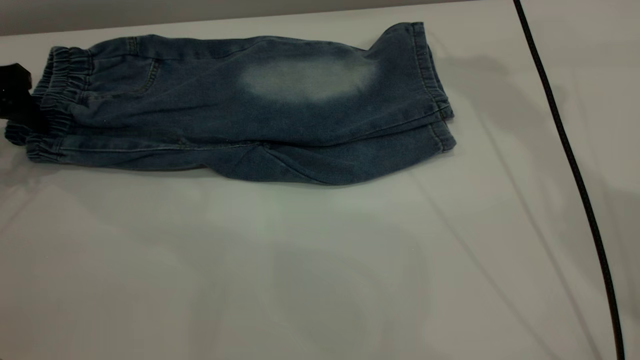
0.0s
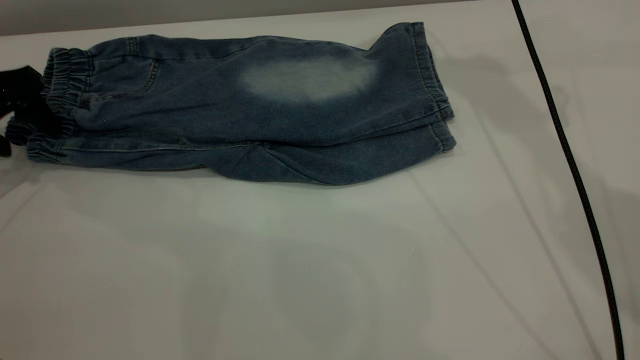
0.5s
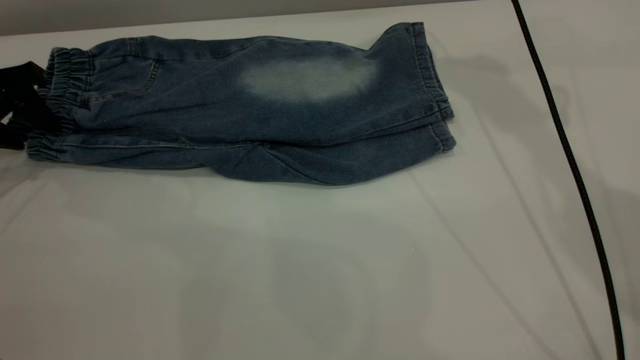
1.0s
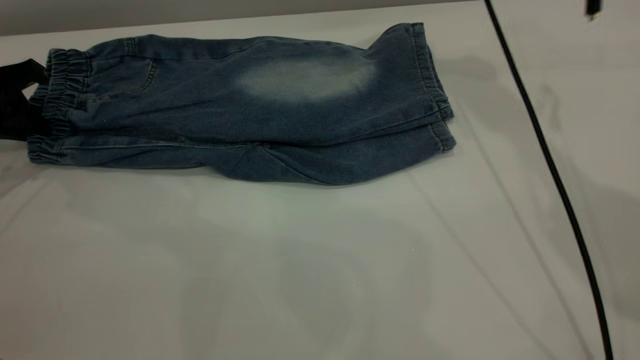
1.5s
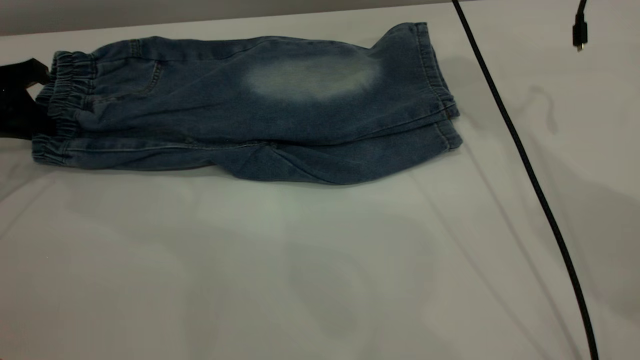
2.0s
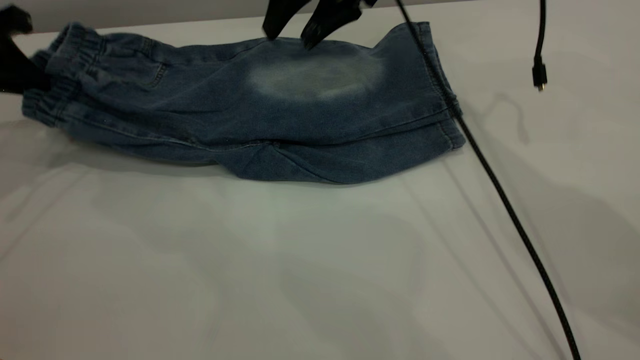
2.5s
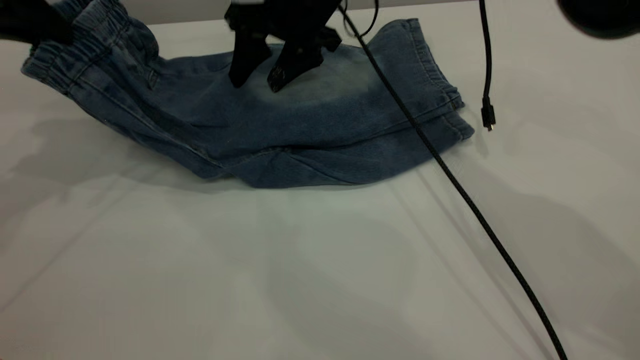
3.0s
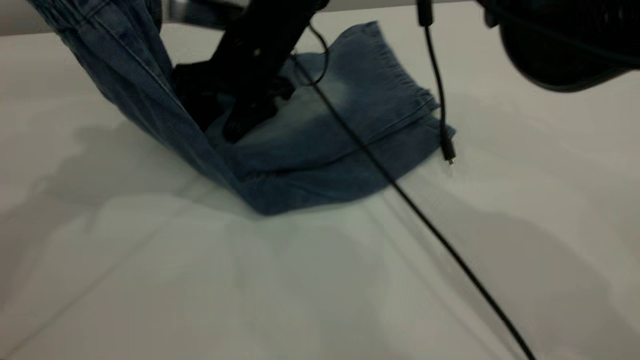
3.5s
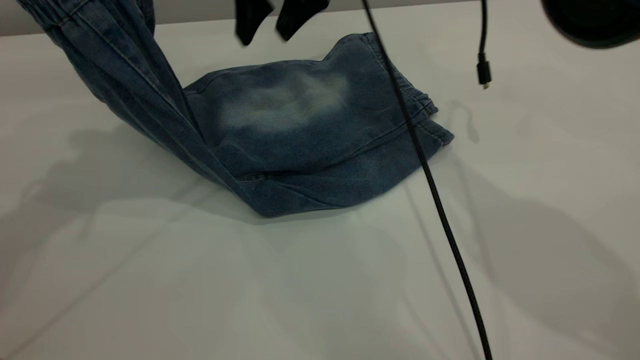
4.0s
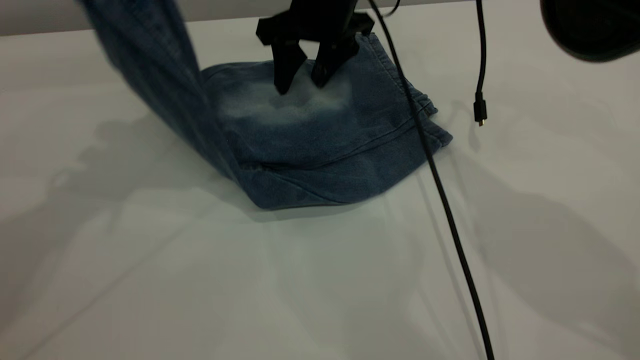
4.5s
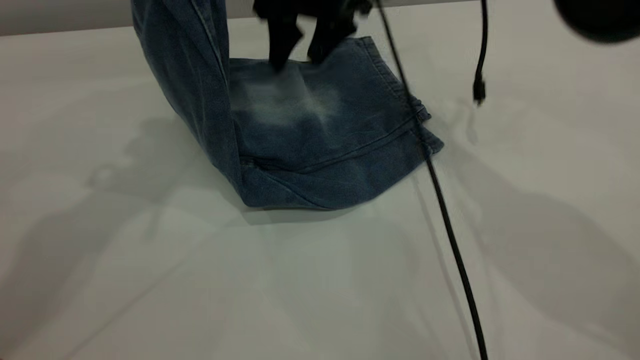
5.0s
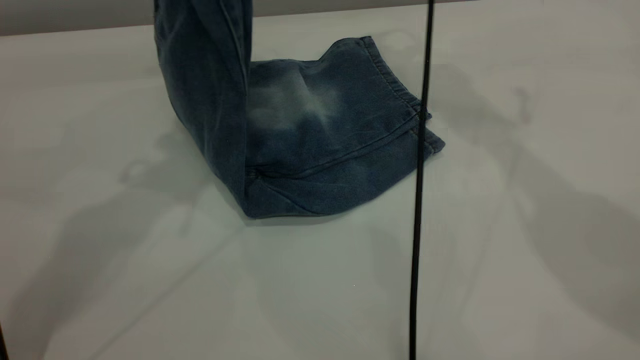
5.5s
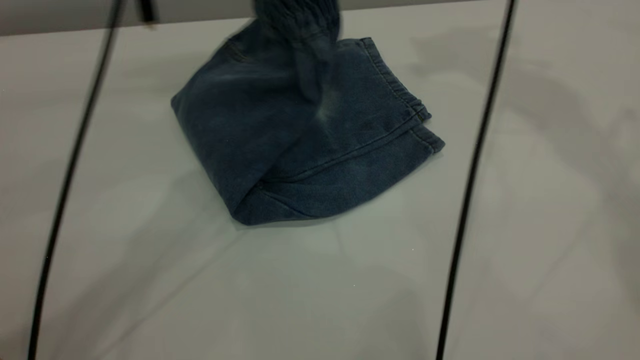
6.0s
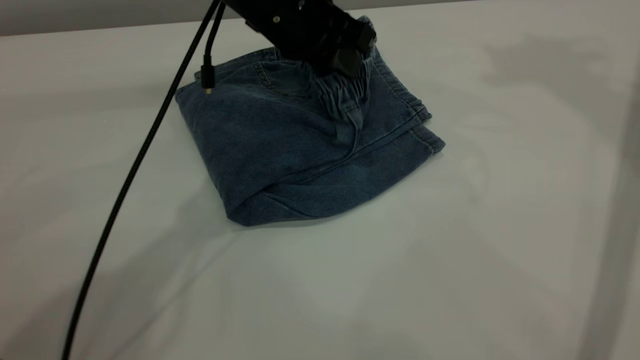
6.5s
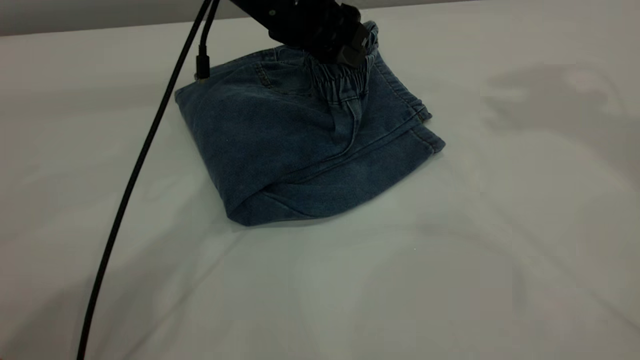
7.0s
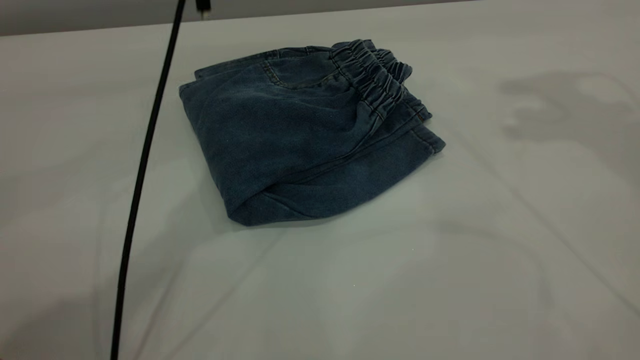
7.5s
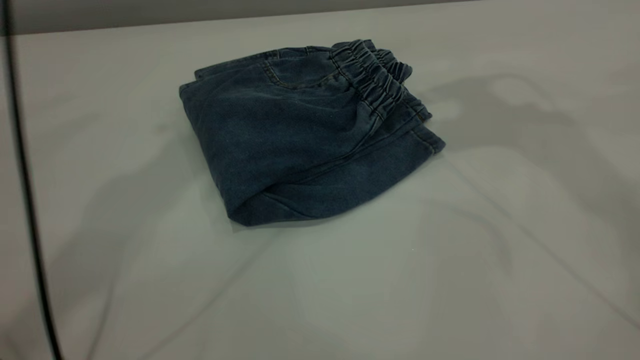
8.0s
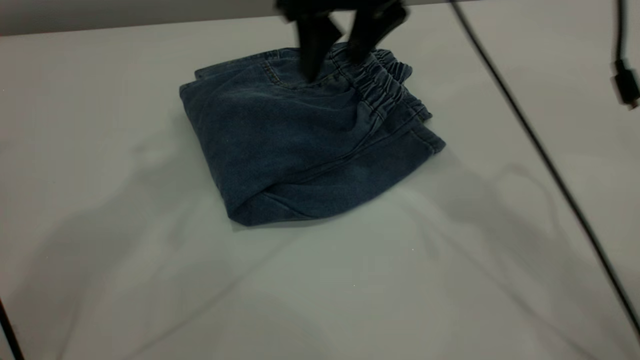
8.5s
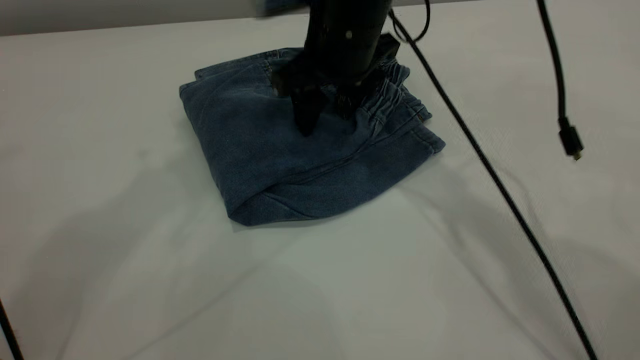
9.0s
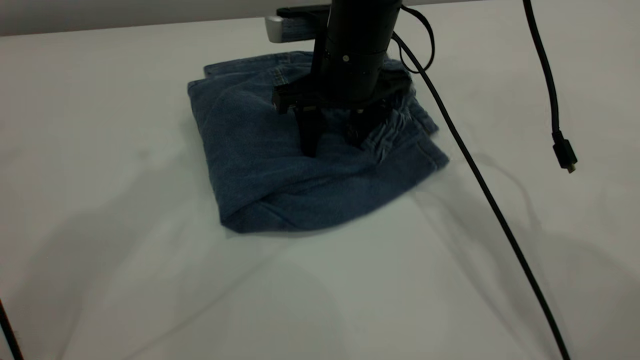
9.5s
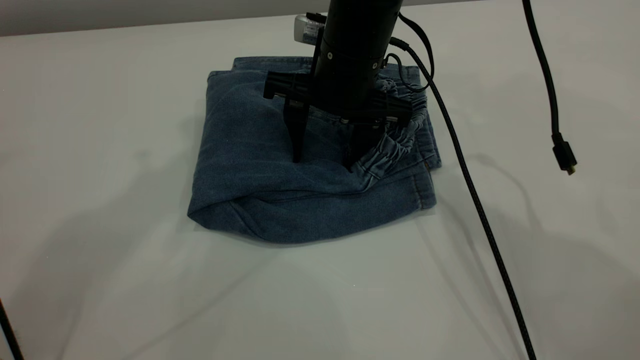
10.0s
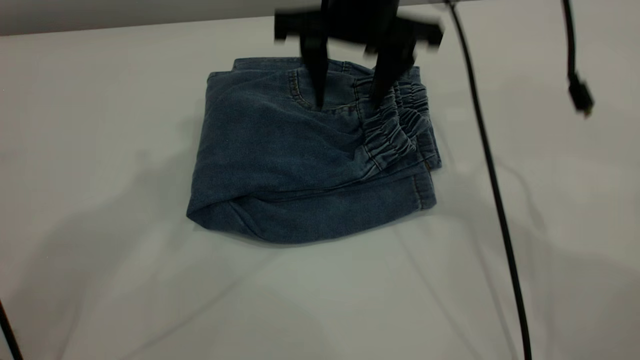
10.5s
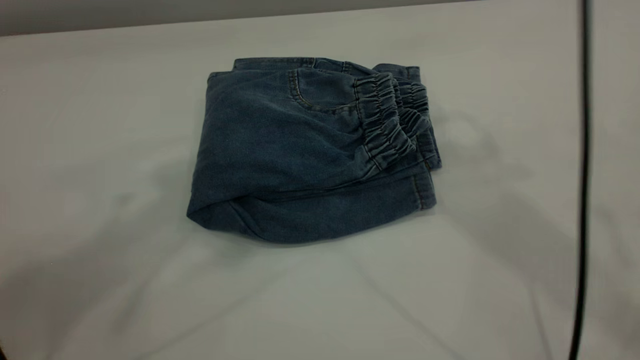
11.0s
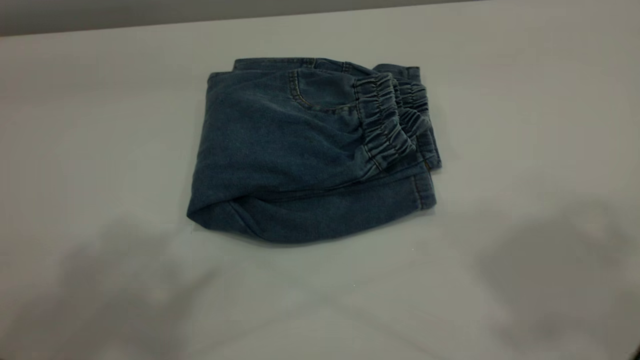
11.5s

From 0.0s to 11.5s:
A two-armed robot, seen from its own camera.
Step, from 0.0s to 7.5s: Fold the pants from left to right.
From 0.0s to 2.0s: The right gripper shifts about 10 cm downward; the left gripper closes up.
From 2.0s to 4.0s: The left gripper goes some 20 cm upward and to the right; the right gripper moves to the left, approximately 5 cm.
From 4.0s to 6.0s: The right gripper heads upward and to the right, covering approximately 35 cm. The left gripper shifts some 20 cm to the right.
From 6.0s to 7.5s: The right gripper shifts approximately 15 cm downward, backward and to the right, while the left gripper travels downward and back again, approximately 5 cm each way, and opens up.
From 7.5s to 9.5s: The right gripper heads downward and to the left, covering some 35 cm. The left gripper is displaced upward and to the left by some 25 cm.
From 9.5s to 11.5s: The right gripper moves upward, backward and to the right, approximately 50 cm. Meanwhile the left gripper goes approximately 15 cm backward.

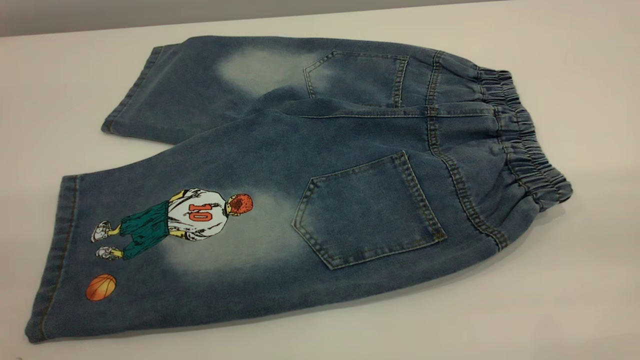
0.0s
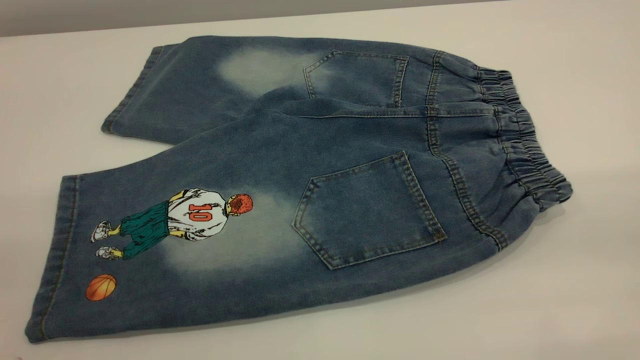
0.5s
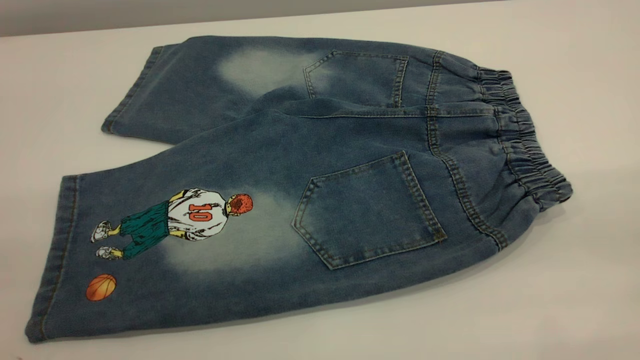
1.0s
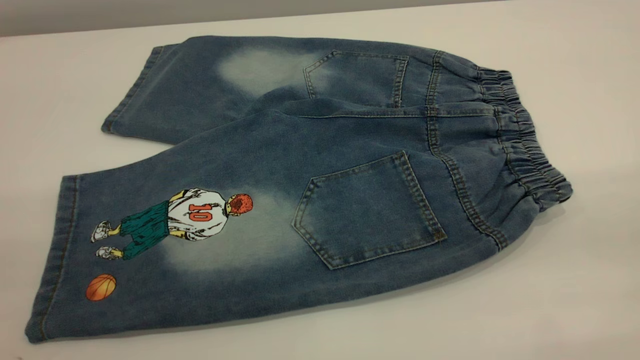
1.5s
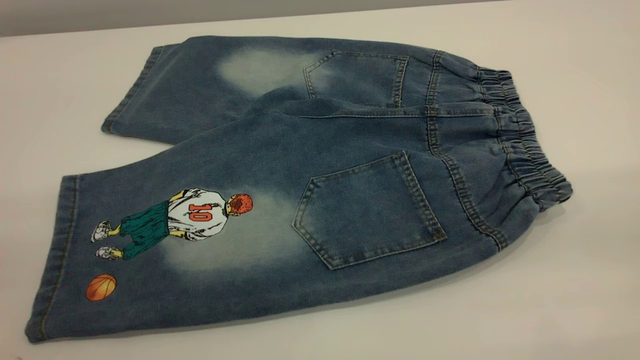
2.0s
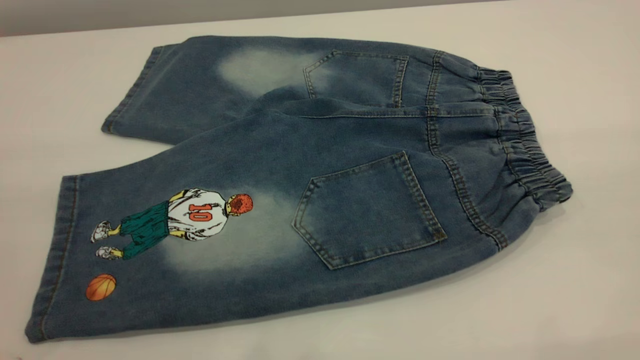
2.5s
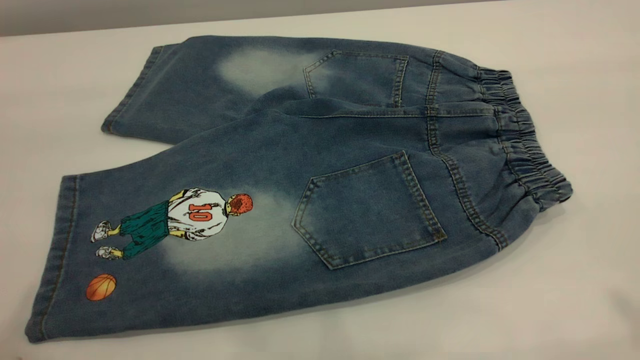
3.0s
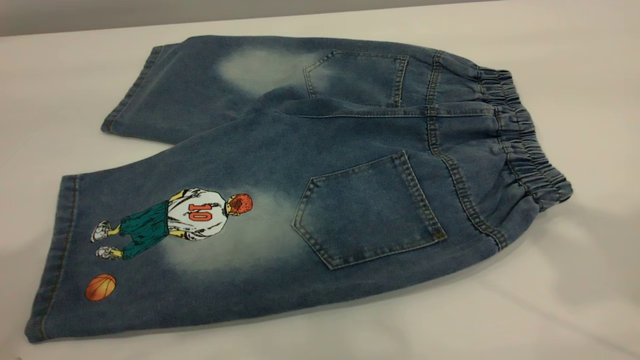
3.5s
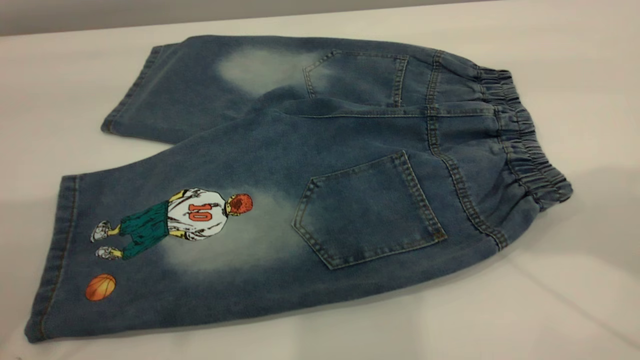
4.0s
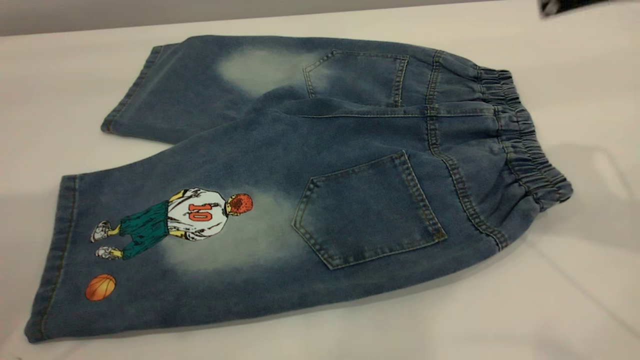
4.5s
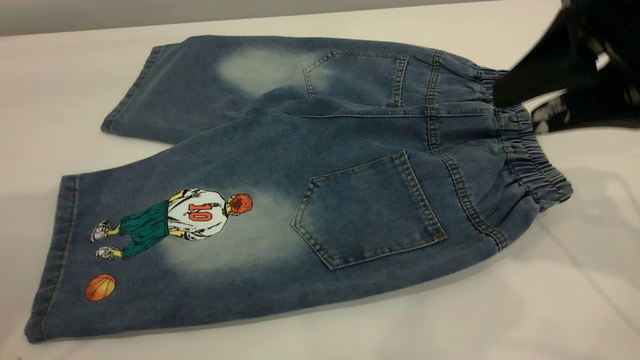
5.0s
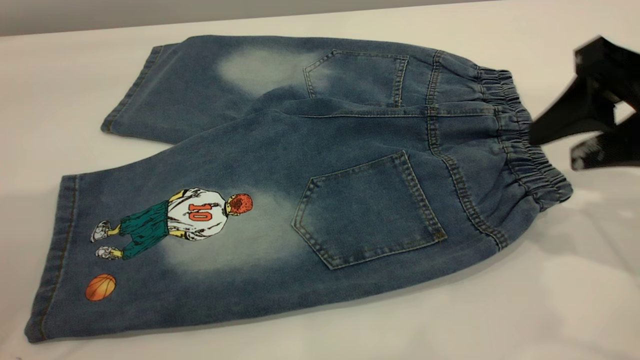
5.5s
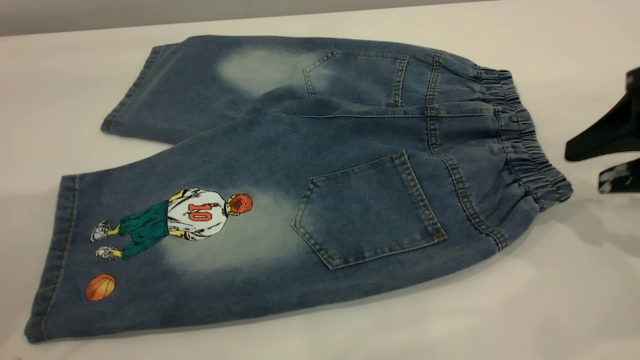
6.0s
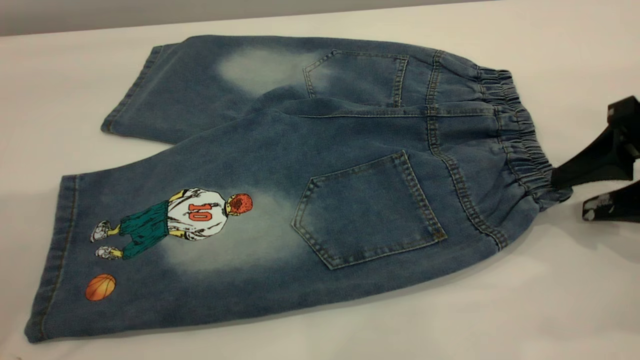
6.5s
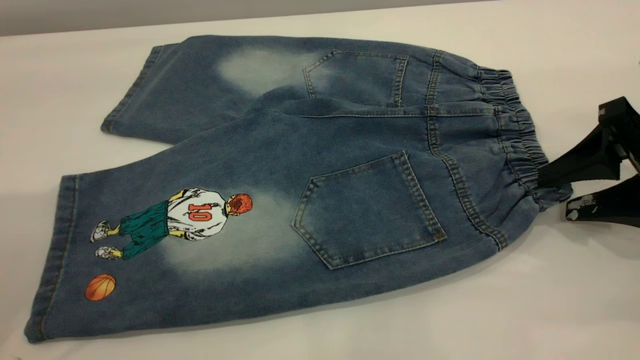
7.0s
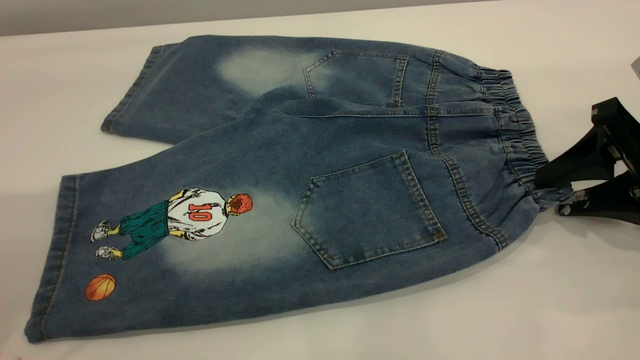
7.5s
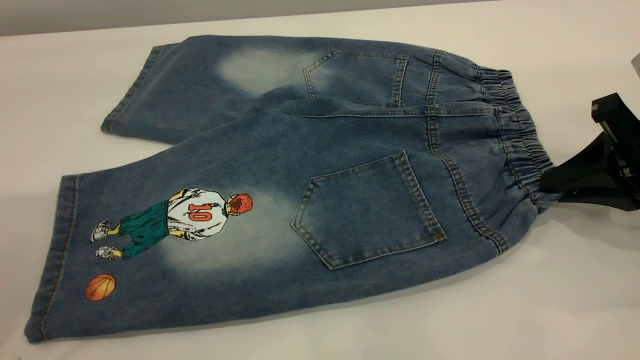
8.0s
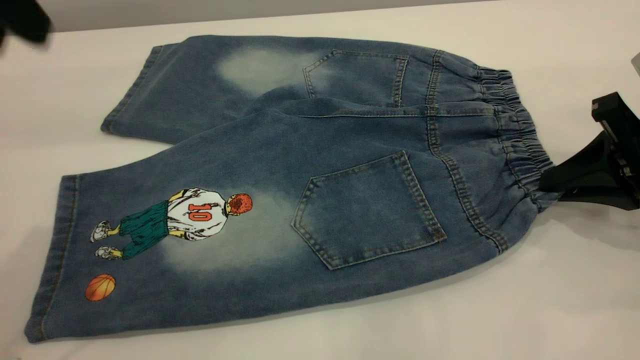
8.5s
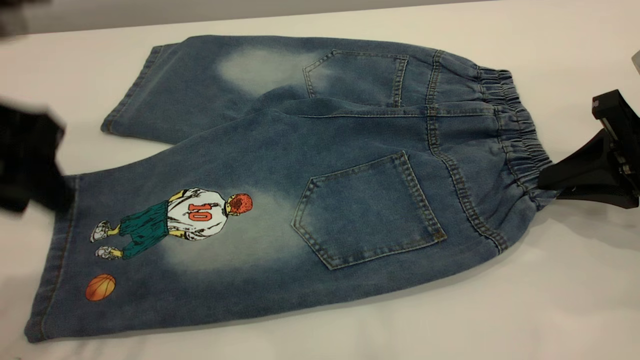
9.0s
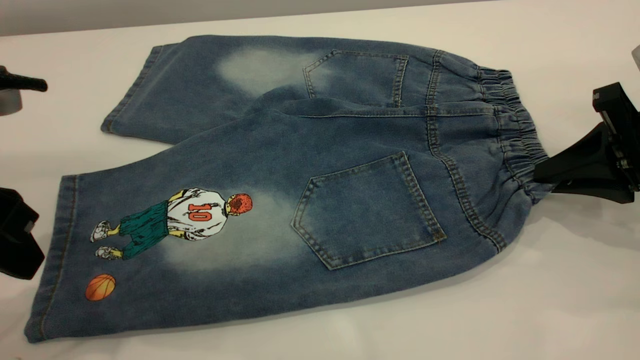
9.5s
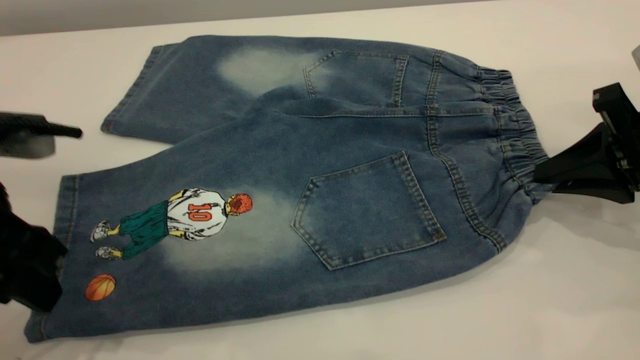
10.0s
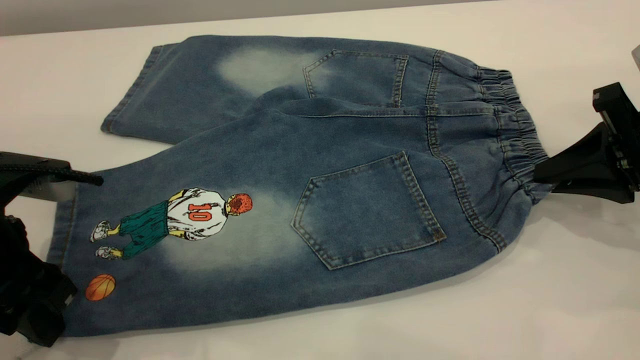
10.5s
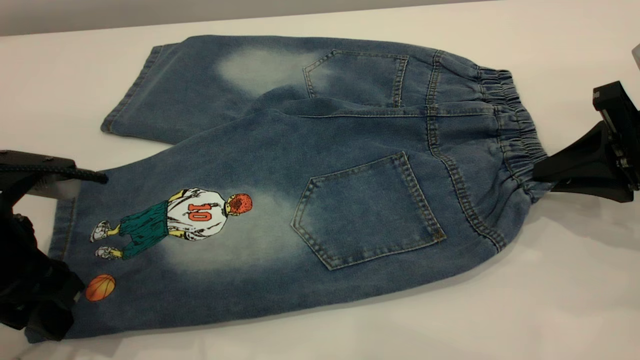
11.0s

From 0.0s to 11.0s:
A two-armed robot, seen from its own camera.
From 0.0s to 2.0s: Both grippers stay about where they are.
From 2.0s to 3.5s: Both grippers travel together forward, approximately 20 cm.
From 3.5s to 5.5s: The right gripper is displaced downward by about 25 cm; the left gripper heads forward, covering about 5 cm.
From 5.5s to 7.5s: The right gripper shifts roughly 10 cm downward.
From 7.5s to 9.0s: The left gripper is displaced downward by about 15 cm, while the right gripper closes.
From 9.0s to 11.0s: The left gripper is displaced downward by about 10 cm.
